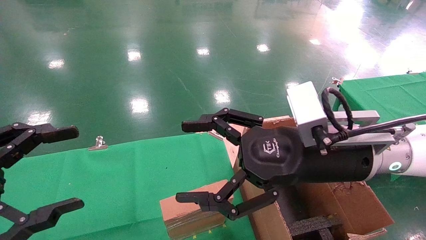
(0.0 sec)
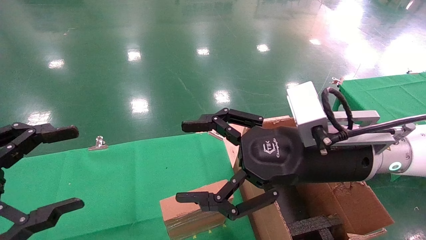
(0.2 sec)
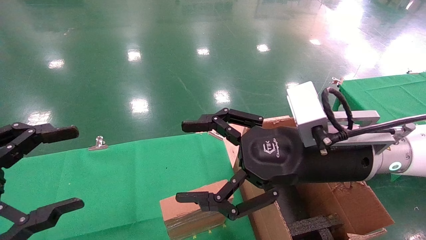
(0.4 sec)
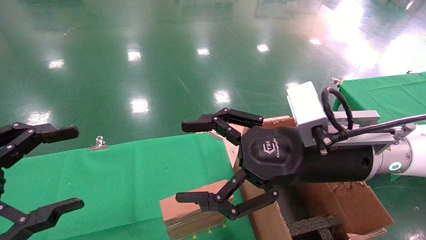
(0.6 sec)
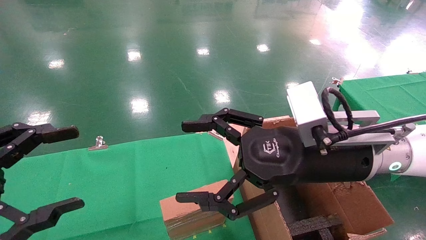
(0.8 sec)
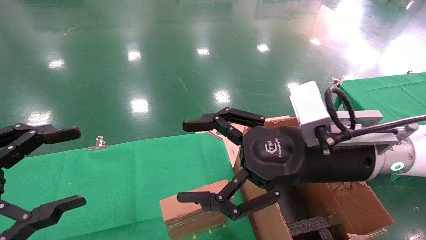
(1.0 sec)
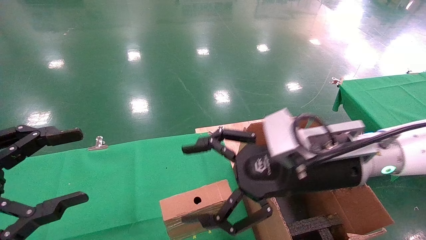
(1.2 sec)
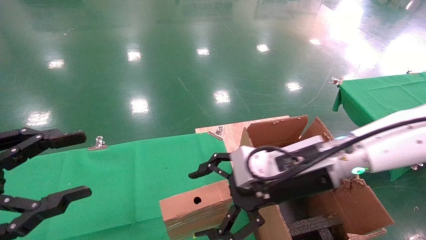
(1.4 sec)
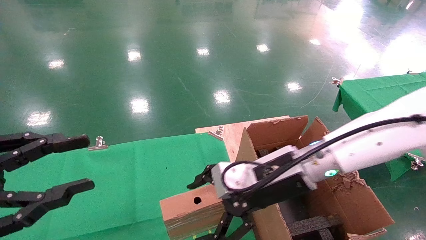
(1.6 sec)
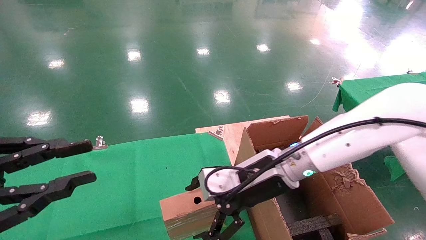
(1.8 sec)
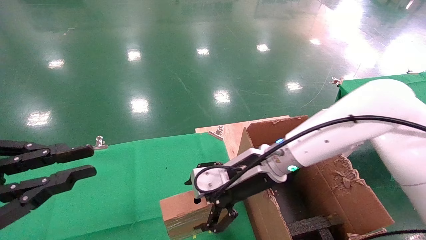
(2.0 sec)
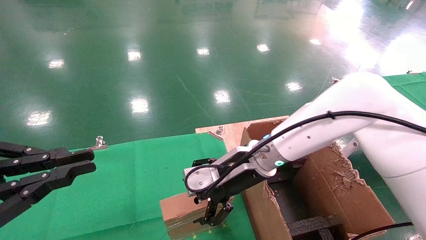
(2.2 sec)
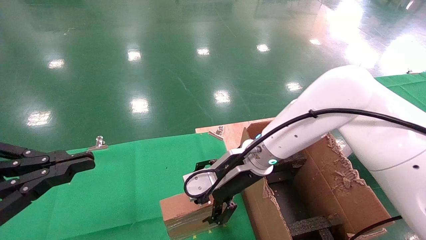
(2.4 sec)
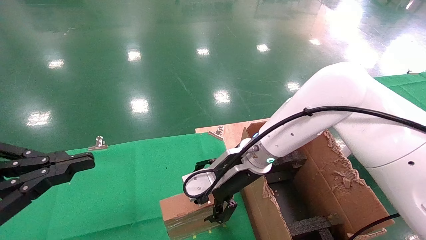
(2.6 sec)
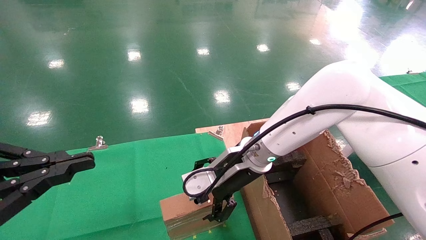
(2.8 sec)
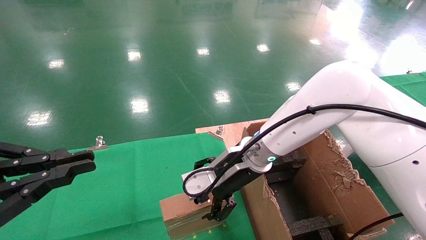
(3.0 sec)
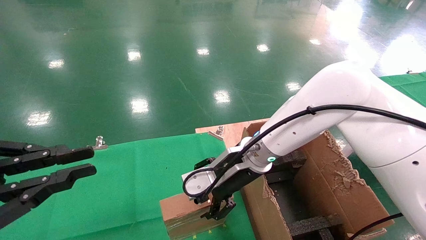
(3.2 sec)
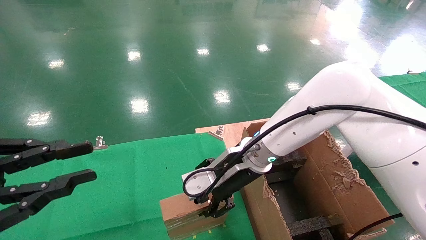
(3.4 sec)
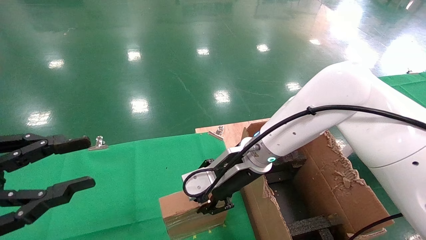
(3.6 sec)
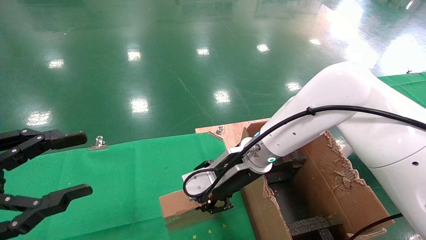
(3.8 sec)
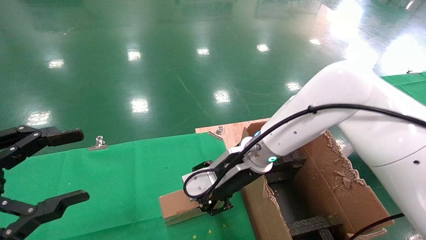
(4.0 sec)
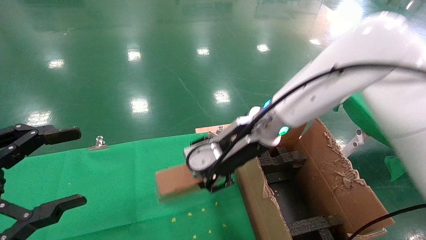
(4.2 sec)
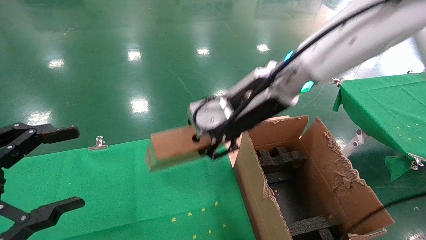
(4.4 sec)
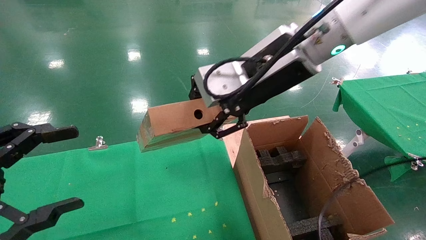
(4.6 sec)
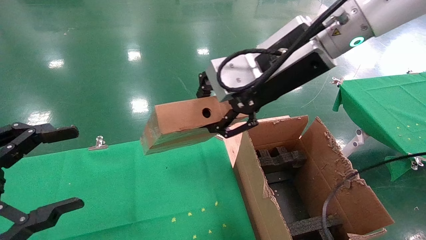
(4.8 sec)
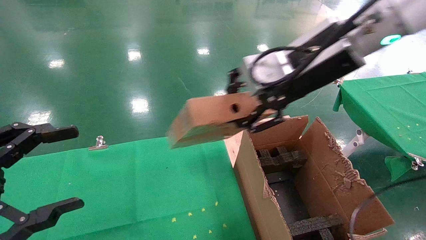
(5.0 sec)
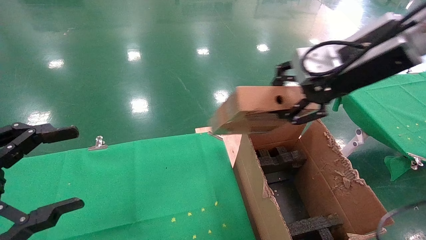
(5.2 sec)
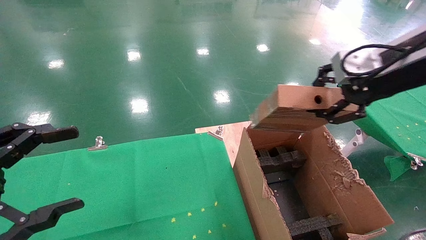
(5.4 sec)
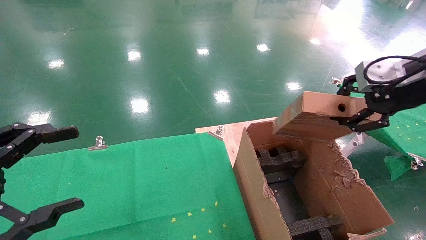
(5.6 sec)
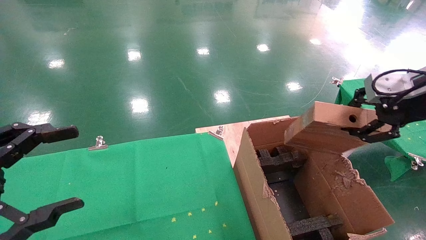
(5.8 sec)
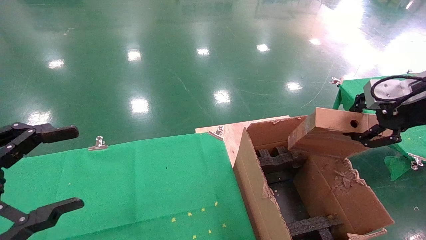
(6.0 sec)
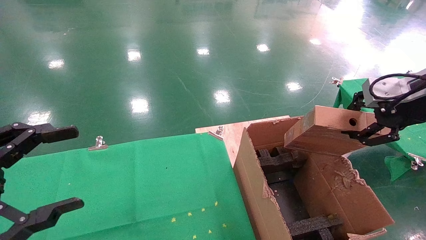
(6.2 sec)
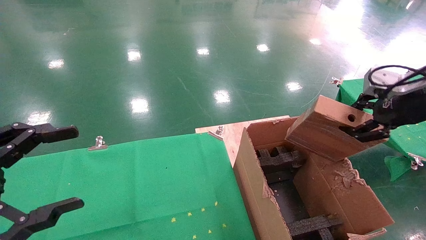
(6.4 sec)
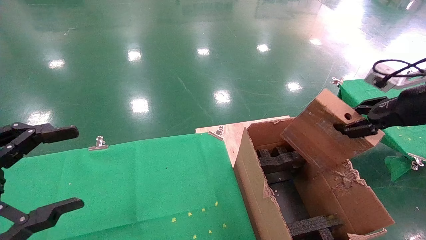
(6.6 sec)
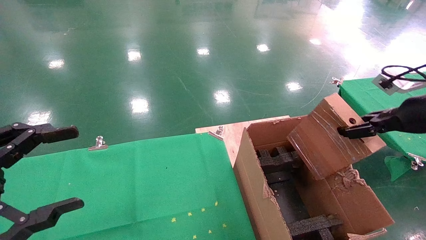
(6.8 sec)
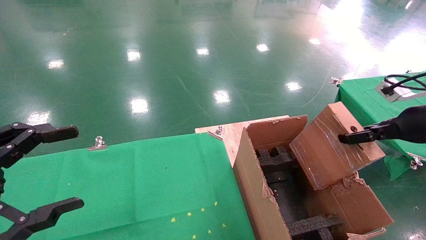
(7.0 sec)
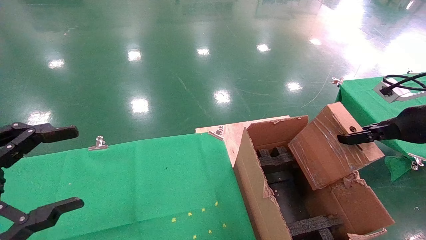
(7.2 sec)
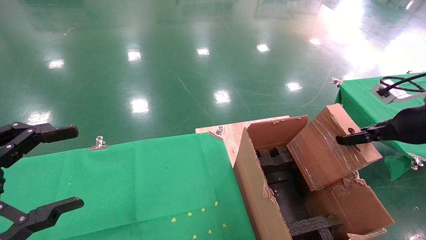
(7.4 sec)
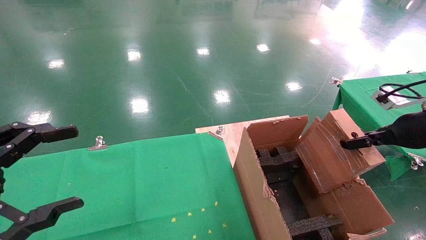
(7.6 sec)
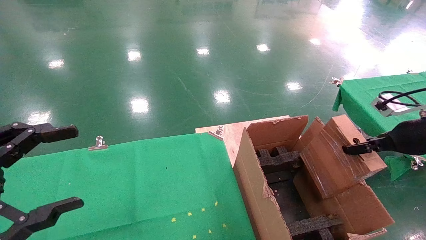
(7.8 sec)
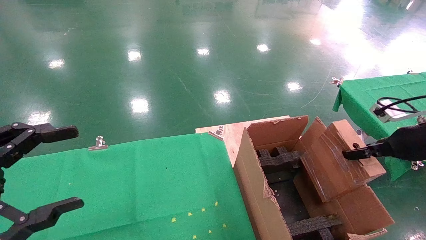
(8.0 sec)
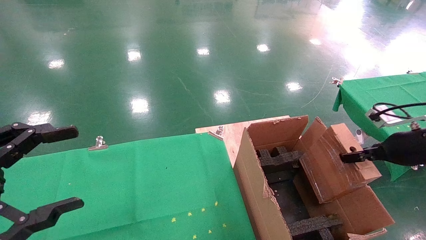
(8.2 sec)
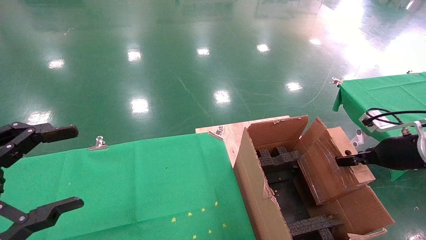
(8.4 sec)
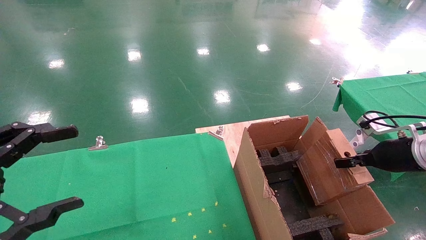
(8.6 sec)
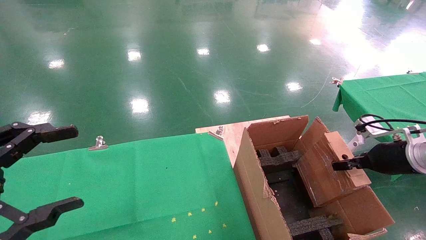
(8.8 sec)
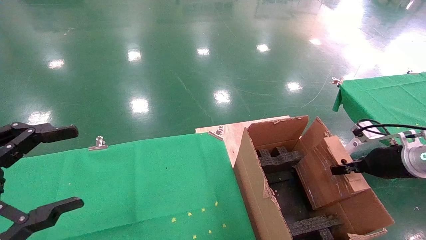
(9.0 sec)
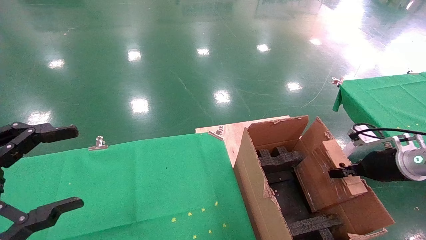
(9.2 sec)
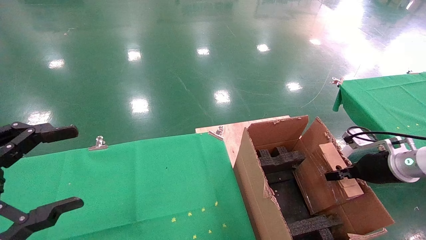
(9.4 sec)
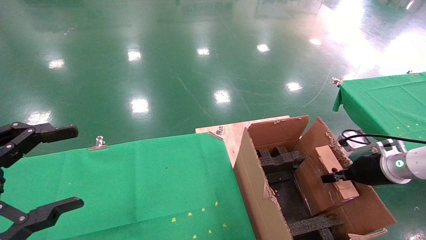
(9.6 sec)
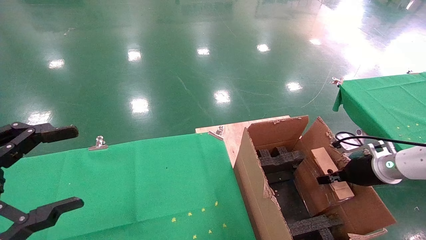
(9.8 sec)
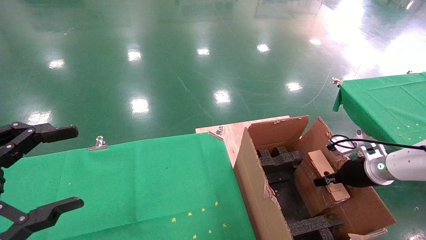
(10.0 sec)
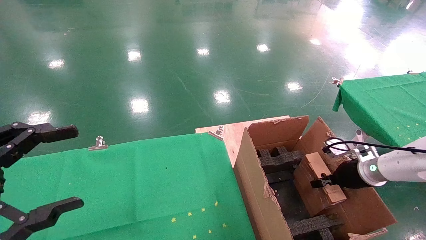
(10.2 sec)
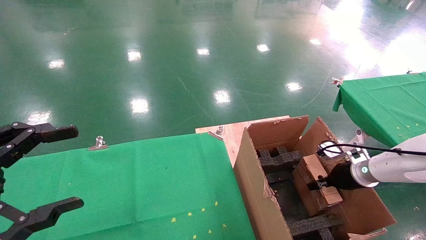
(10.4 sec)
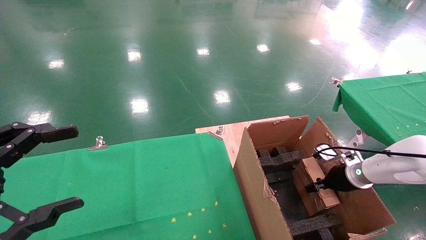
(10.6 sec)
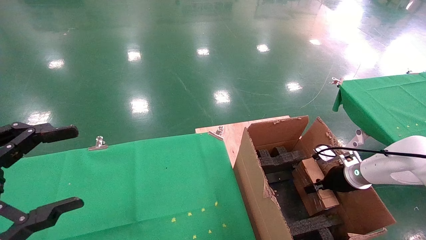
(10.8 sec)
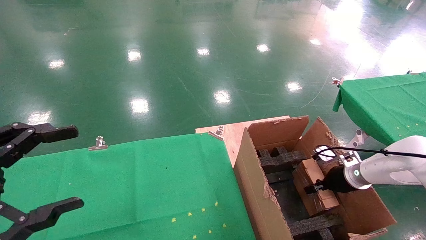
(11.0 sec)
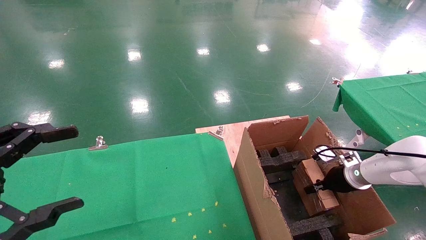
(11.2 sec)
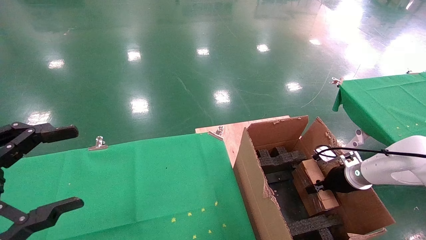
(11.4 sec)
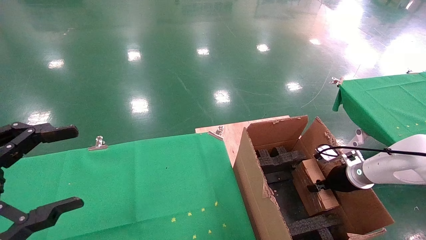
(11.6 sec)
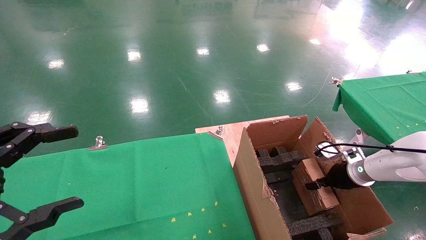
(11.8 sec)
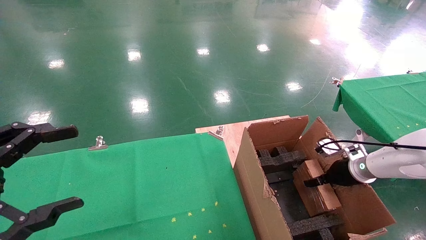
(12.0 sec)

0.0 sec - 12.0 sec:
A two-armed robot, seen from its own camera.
Task of the whole recording: using a robotic arm to pick up a cardboard box and palace it the carton.
Step, 1.4 sec - 3.6 sec: Pick up the mouse and the power cord paper box.
0.0 sec - 1.6 sec: The right gripper is displaced forward and downward by approximately 10 cm. The left gripper closes.
1.6 sec - 3.0 sec: The right gripper heads forward and to the left, covering some 10 cm, while the left gripper closes its fingers.
3.0 sec - 4.4 sec: The right gripper moves upward, roughly 15 cm, and closes its fingers. The left gripper opens up.
4.4 sec - 6.0 sec: The right gripper travels to the right by approximately 30 cm.
6.0 sec - 7.6 sec: The right gripper goes about 10 cm downward and to the right.
7.6 sec - 9.0 sec: The right gripper goes about 10 cm downward.
9.0 sec - 10.4 sec: The right gripper heads downward and forward, covering roughly 10 cm.
10.4 sec - 12.0 sec: The right gripper opens its fingers.

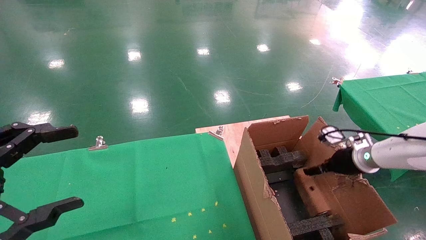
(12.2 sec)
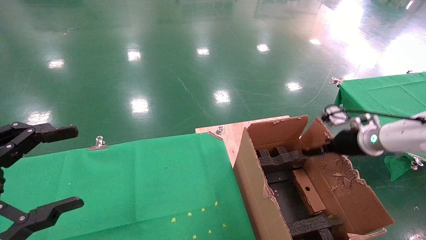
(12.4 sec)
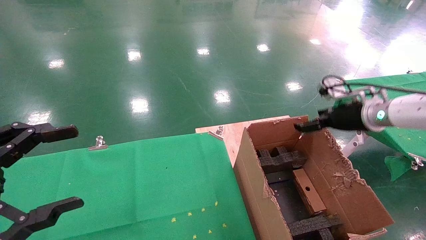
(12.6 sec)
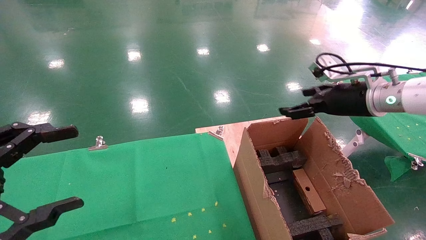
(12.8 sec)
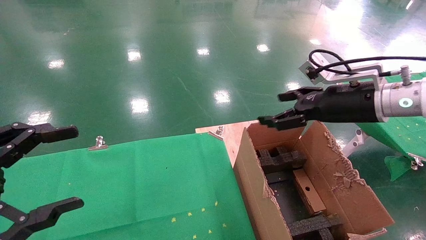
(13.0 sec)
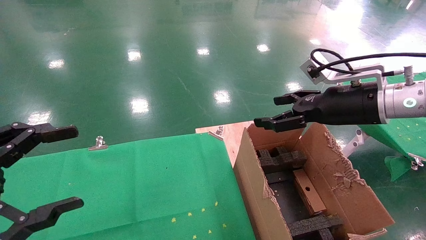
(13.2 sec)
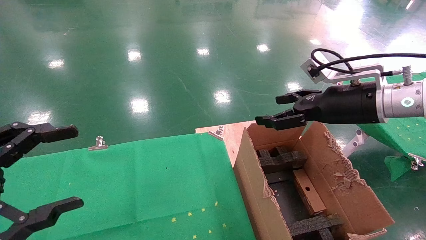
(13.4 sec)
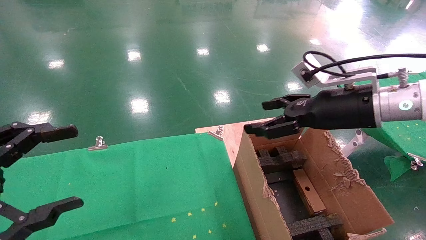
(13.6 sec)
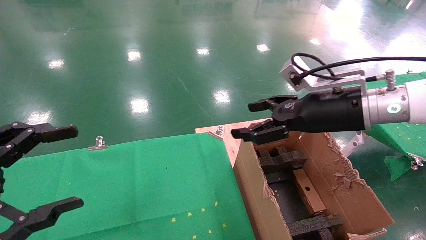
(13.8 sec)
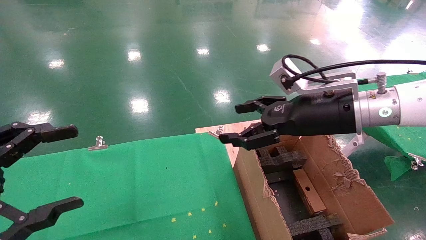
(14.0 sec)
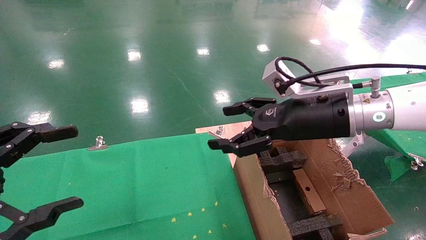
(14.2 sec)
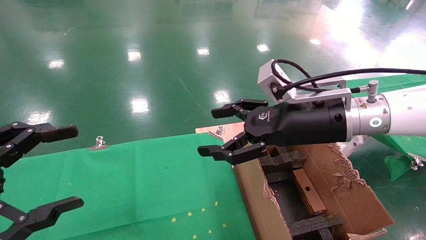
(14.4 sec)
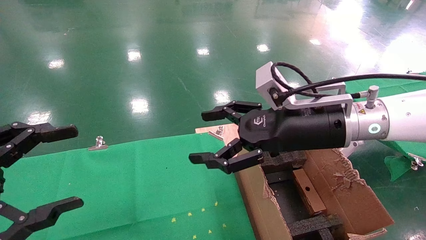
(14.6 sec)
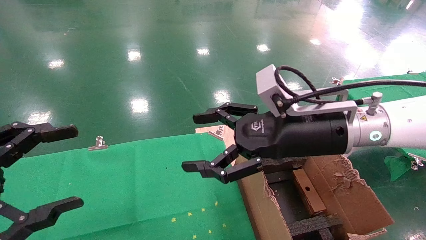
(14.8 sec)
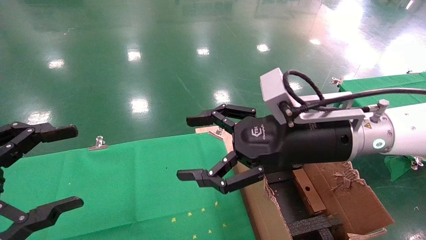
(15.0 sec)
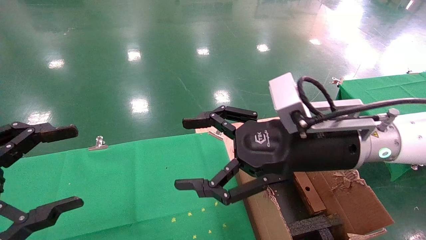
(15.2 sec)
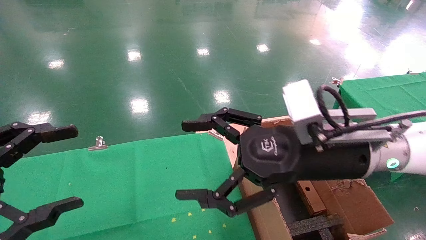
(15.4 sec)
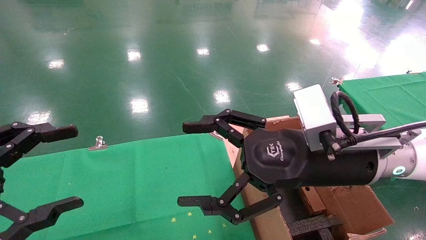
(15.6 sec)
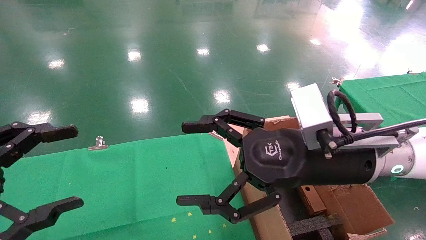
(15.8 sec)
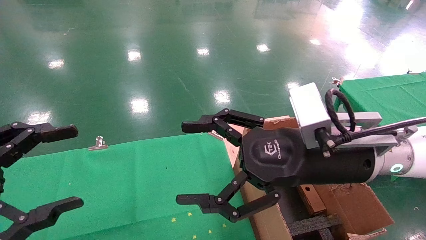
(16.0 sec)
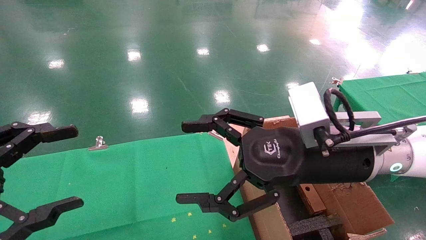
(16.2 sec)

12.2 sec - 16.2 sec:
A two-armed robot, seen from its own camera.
Task of the whole recording: using a robotic arm to pick up a cardboard box and palace it the carton.
12.2 sec - 13.6 sec: The right gripper travels upward, to the left and backward by about 25 cm.
13.6 sec - 14.8 sec: The right gripper is displaced to the left by approximately 10 cm.
14.8 sec - 16.2 sec: The grippers move only a little.
